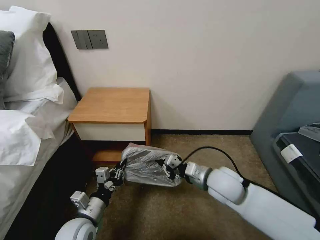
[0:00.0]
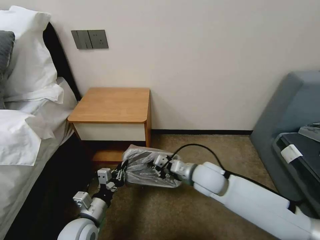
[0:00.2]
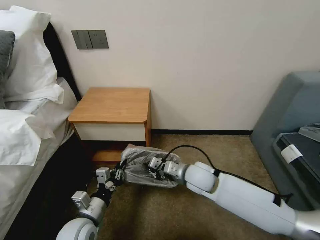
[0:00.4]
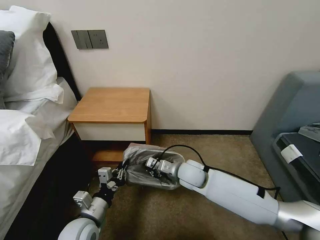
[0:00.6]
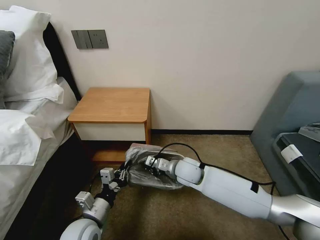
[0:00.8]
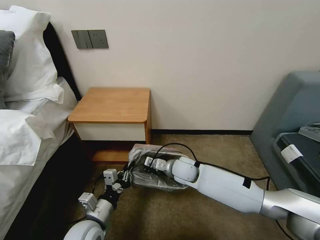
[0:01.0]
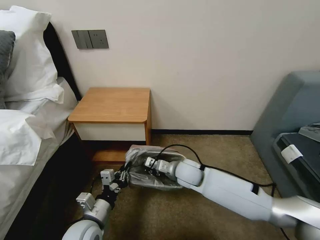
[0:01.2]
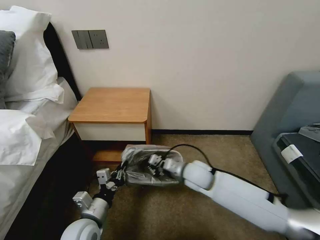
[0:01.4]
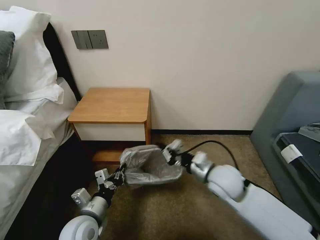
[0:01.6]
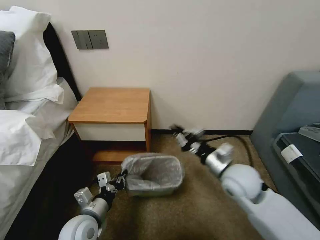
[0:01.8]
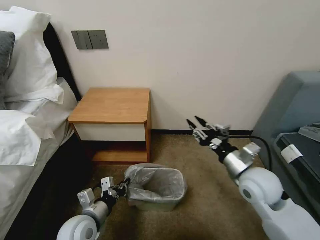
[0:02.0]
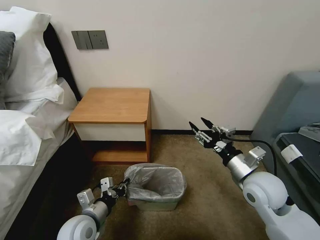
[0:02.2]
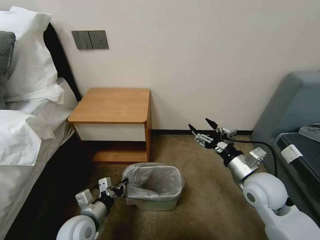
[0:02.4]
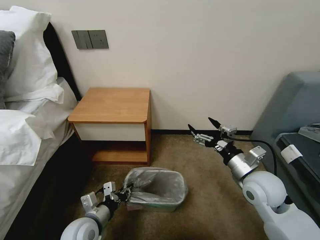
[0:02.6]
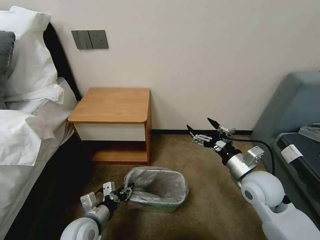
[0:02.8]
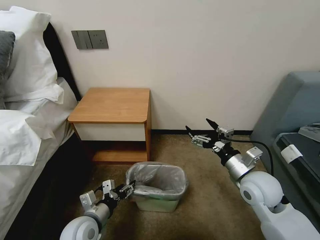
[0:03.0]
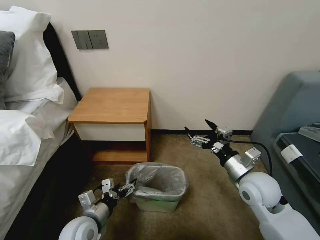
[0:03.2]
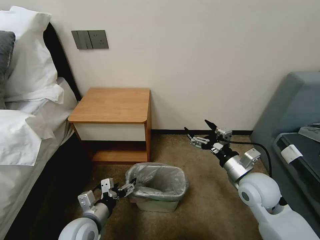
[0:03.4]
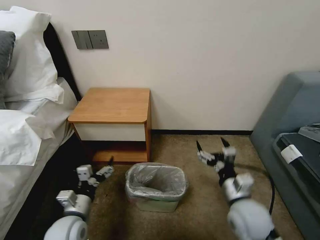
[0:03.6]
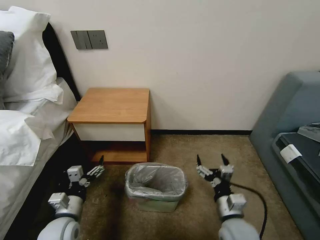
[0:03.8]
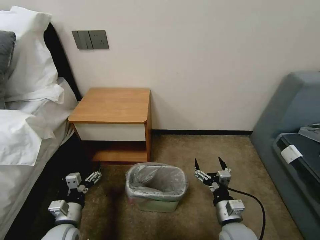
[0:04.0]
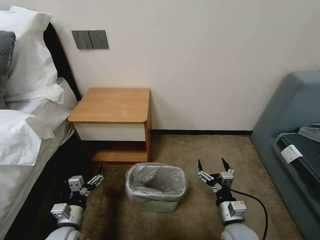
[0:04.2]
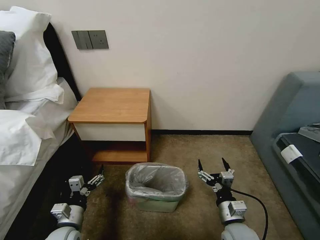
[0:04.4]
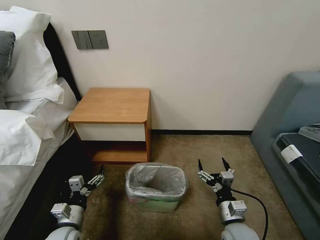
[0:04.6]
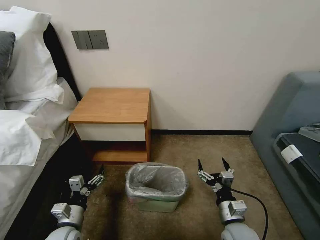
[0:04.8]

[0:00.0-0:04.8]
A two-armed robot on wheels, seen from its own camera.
Task of the whole recording: Pick up the garbage bag from the table and place it over the trash can.
0:00.0 to 0:01.6: The right gripper reaches roughly 10 cm to the left, then returns.
0:01.6 to 0:03.2: The left gripper opens up. Meanwhile the right gripper shifts roughly 10 cm to the right, and opens its fingers.
0:03.2 to 0:04.8: The right gripper shifts some 15 cm downward and backward, while the left gripper moves to the left and downward, some 10 cm.

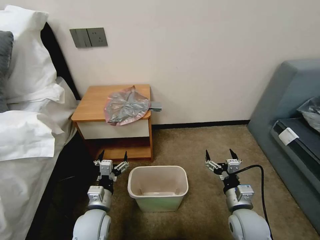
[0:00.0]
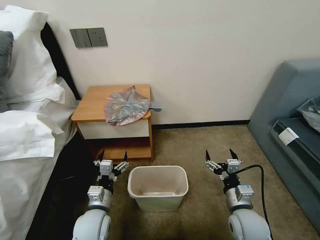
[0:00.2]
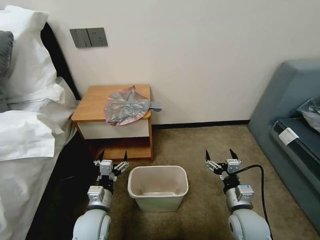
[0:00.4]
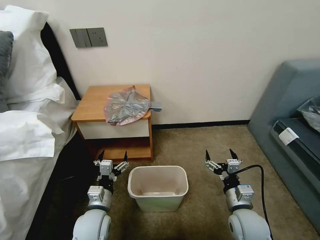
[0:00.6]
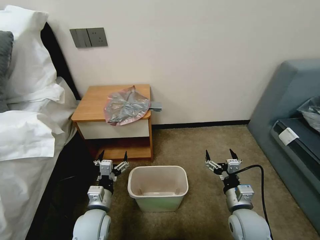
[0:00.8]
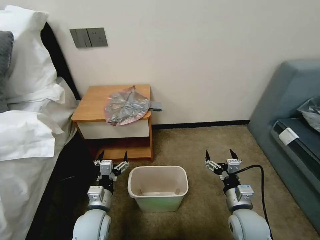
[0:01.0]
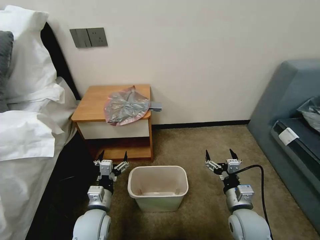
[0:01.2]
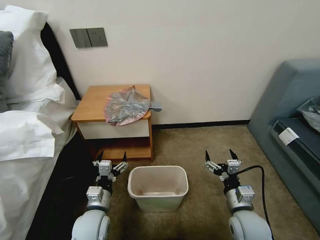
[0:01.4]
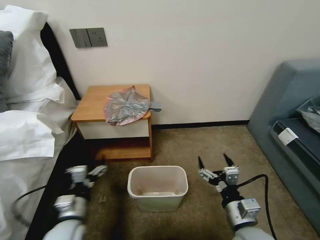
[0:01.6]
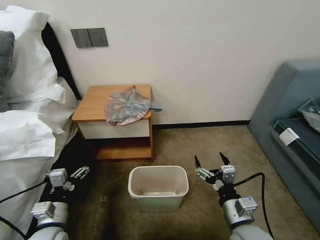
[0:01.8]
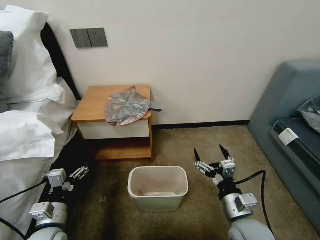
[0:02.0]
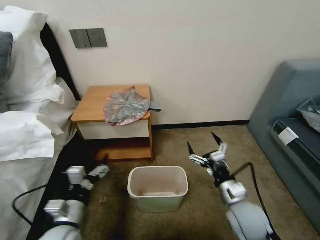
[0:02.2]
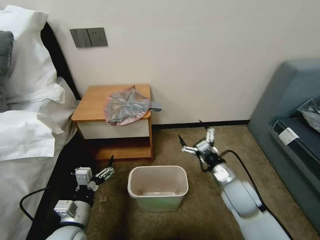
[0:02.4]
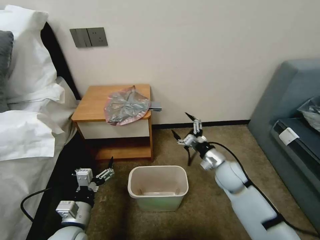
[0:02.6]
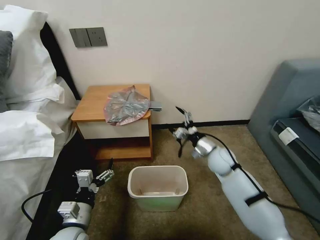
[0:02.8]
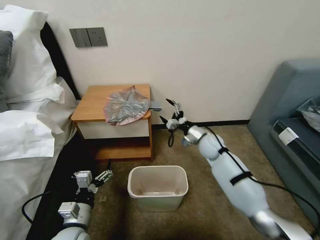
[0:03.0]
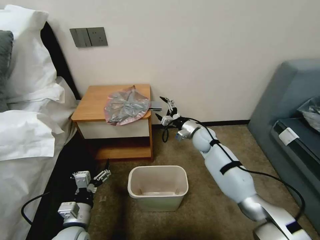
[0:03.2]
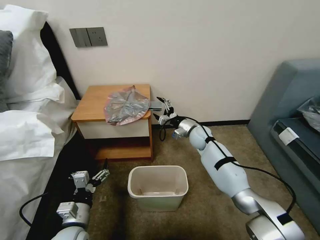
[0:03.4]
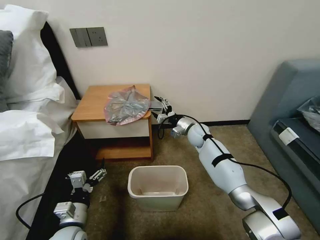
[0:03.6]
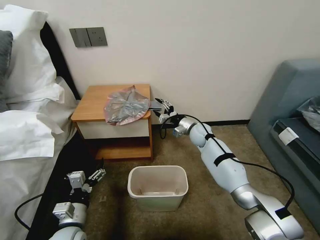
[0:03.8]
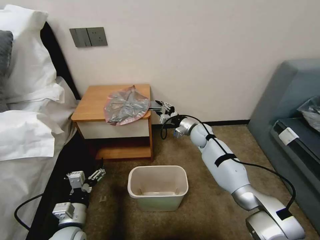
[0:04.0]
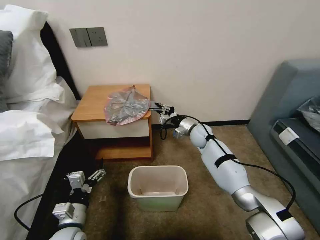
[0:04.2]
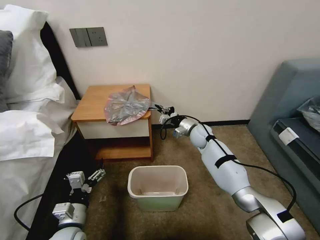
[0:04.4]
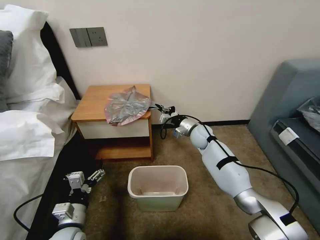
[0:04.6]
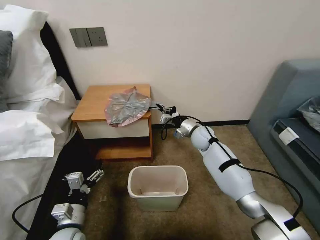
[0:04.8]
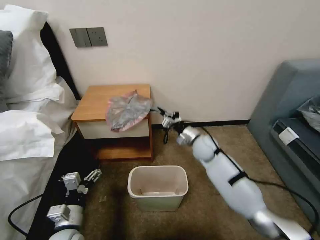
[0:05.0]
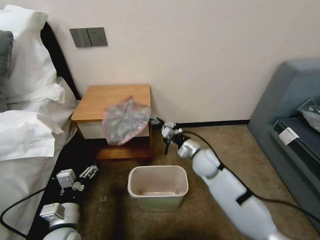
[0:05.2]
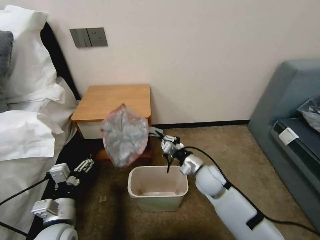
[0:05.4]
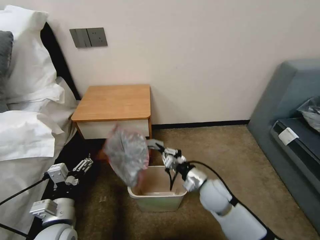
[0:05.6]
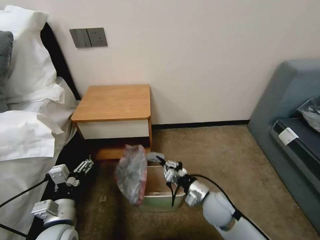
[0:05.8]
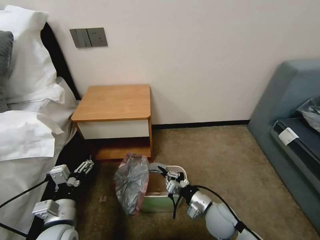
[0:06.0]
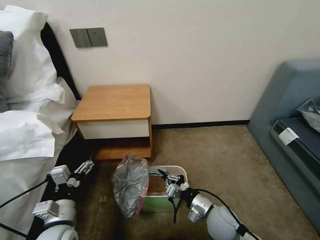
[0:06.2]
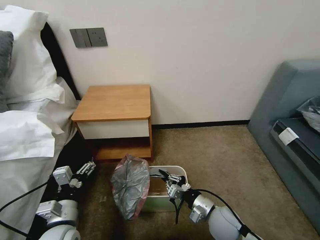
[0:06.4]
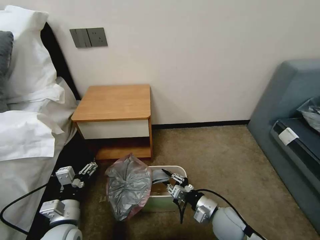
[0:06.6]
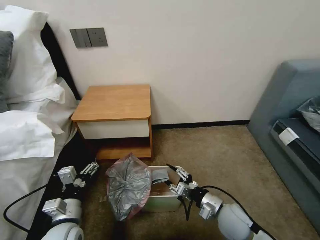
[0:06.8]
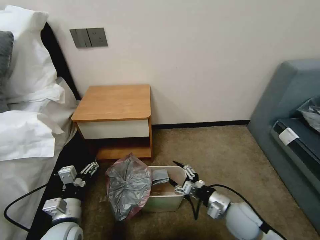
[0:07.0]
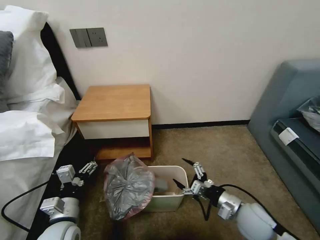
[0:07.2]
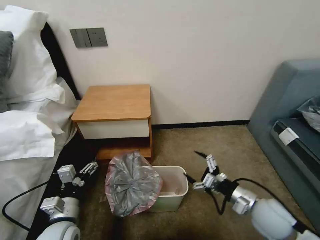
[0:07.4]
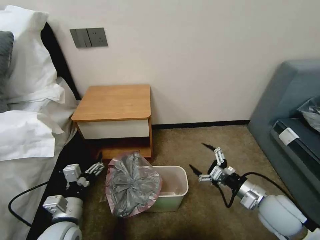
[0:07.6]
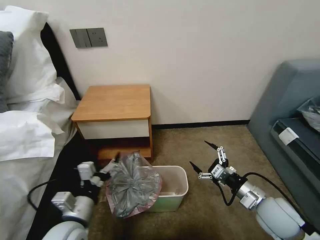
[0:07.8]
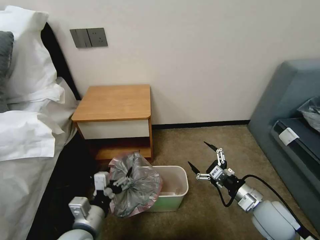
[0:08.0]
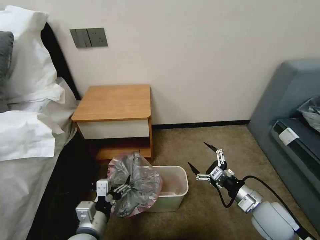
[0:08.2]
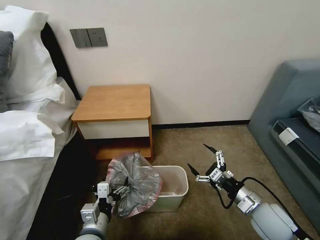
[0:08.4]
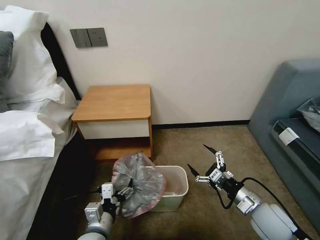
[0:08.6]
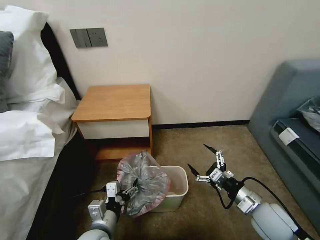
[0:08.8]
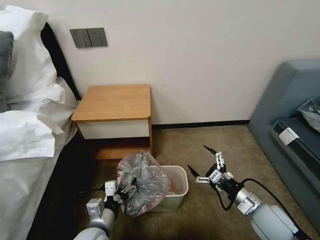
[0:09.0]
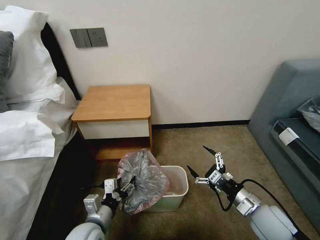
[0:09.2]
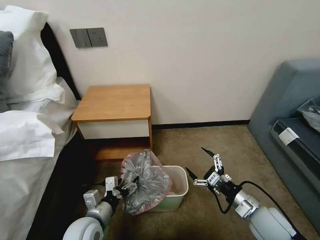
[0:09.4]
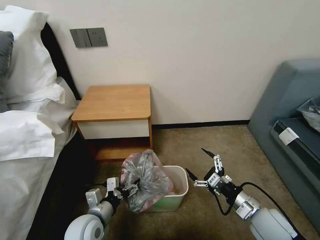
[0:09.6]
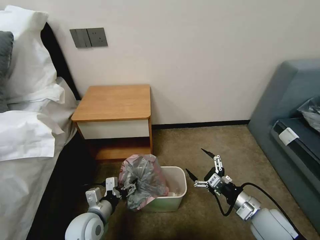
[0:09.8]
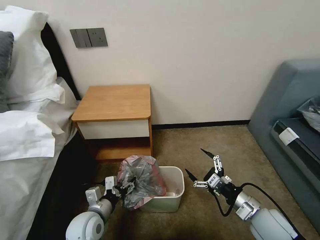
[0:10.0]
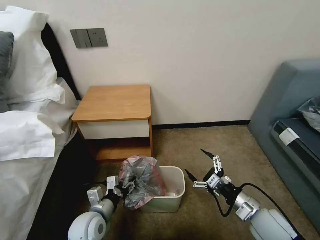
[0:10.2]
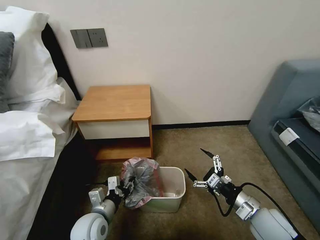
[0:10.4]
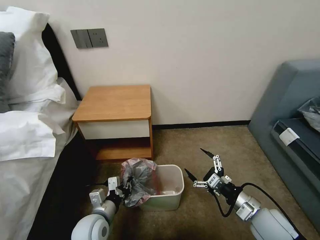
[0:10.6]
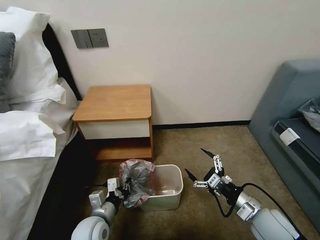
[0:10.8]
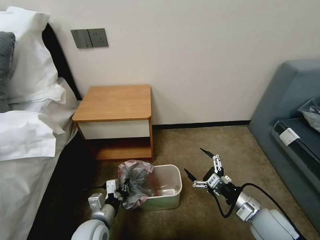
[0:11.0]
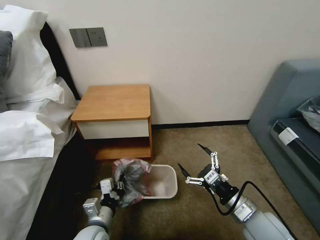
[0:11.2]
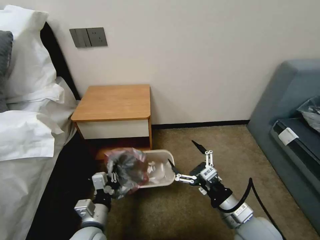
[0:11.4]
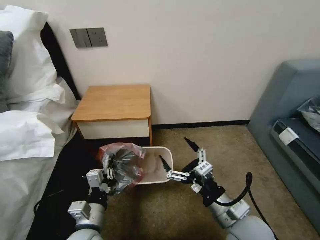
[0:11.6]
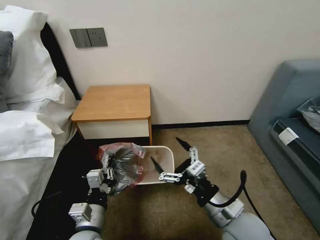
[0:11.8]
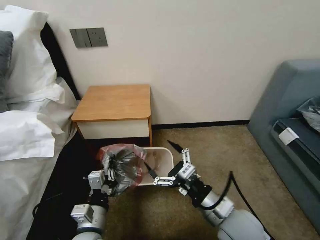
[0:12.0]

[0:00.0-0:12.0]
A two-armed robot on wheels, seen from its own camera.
Task of the whole recording: Pick up the garbage bag from the table and place it over the trash can.
0:01.6 to 0:03.0: The right gripper moves forward, some 30 cm.
0:03.0 to 0:04.4: The right gripper shifts some 5 cm forward, and closes.
0:04.4 to 0:06.0: The right gripper heads backward, covering approximately 30 cm; the left gripper is displaced upward by approximately 5 cm.
0:06.0 to 0:07.6: The right gripper shifts roughly 15 cm to the right and upward, and opens up.
0:07.6 to 0:09.0: The left gripper is displaced to the right by about 5 cm.
0:09.0 to 0:10.4: The left gripper closes.
0:10.4 to 0:12.0: The right gripper goes some 15 cm to the left and upward, while the left gripper travels backward by roughly 5 cm, and closes.

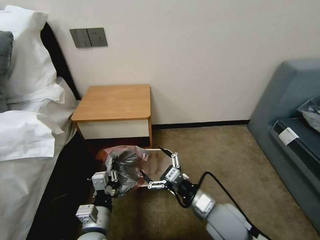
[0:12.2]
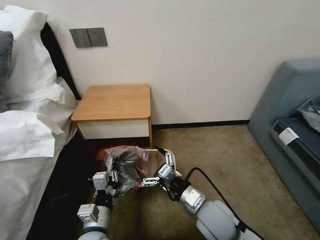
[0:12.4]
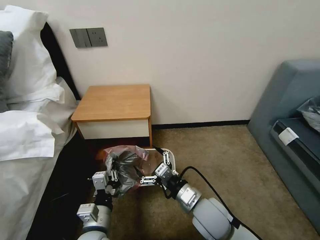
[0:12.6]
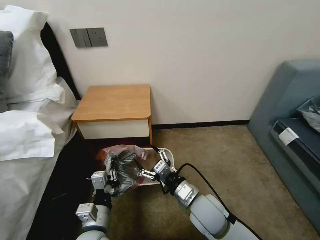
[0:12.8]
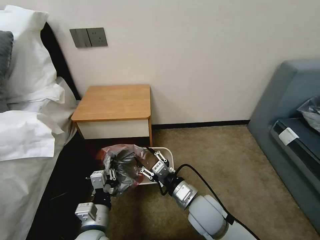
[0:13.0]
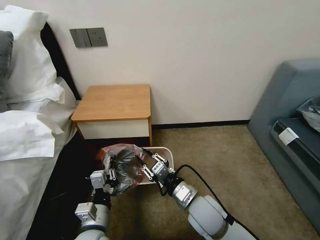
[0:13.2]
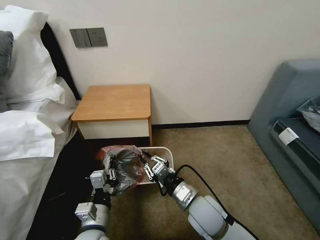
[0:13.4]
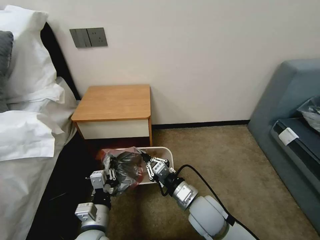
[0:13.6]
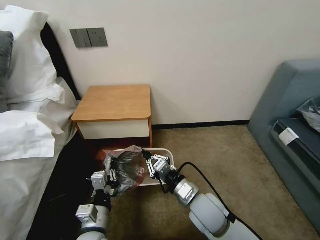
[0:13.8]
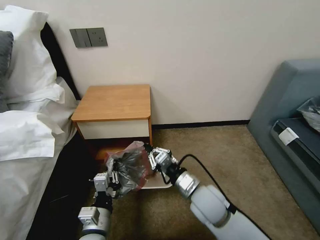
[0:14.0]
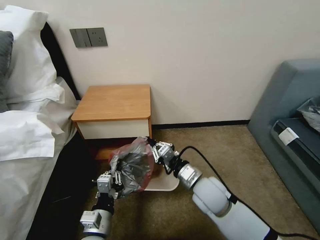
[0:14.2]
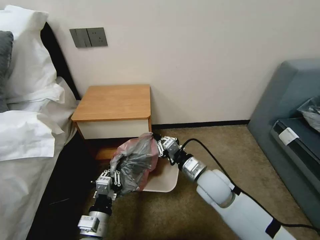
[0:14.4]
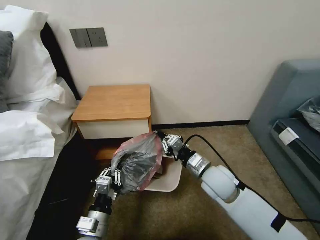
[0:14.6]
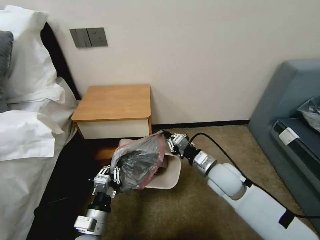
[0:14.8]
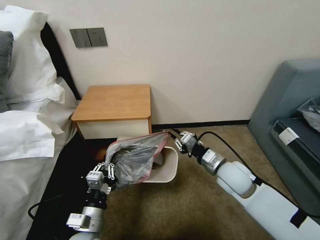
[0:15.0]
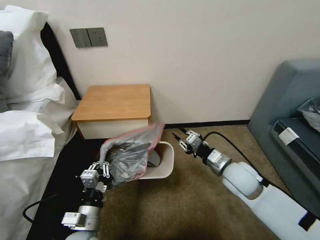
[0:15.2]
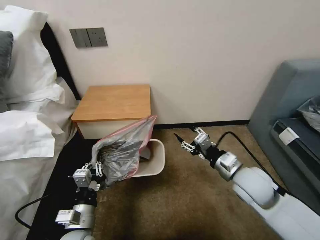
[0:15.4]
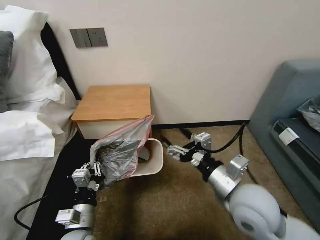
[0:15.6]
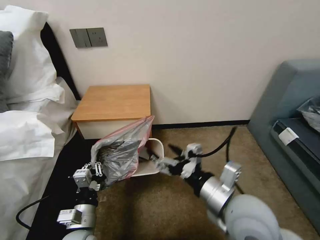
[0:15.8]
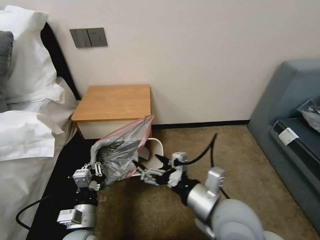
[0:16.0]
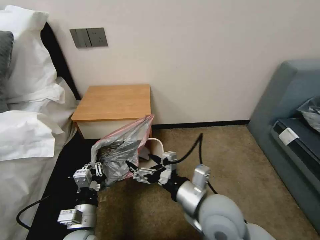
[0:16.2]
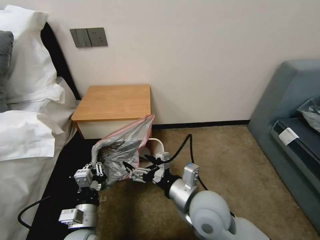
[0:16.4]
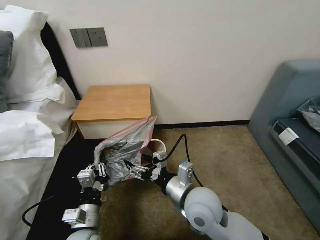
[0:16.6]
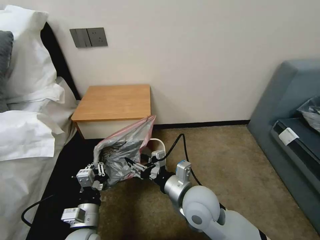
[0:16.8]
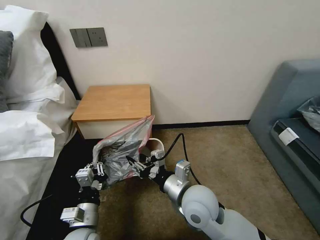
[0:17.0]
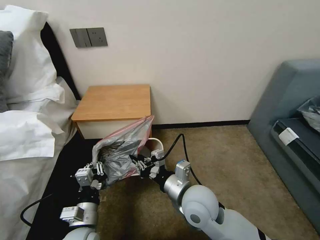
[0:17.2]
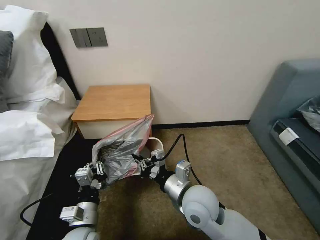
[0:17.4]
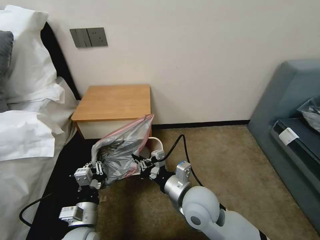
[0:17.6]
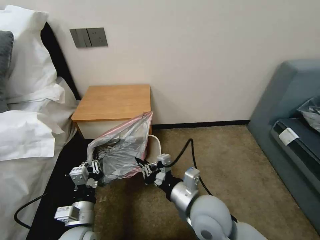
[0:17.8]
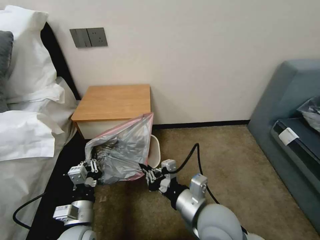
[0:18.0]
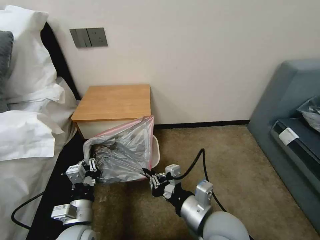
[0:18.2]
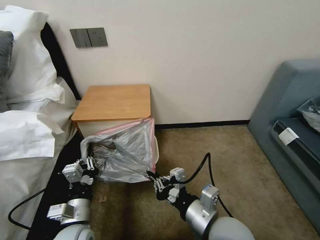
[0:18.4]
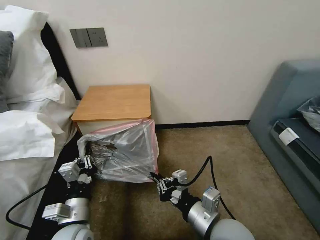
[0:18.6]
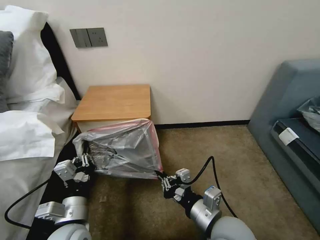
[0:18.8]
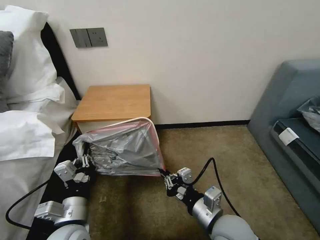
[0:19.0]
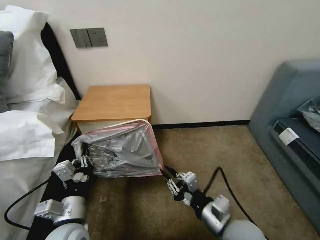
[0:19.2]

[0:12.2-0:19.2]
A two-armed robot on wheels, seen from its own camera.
Task of the whole recording: Pick up the garbage bag from the table and place it over the trash can.
0:12.2 to 0:13.6: The right gripper moves some 5 cm, and closes up.
0:13.6 to 0:15.0: The right gripper is displaced to the right and forward by roughly 15 cm.
0:15.0 to 0:16.4: The right gripper travels to the left and backward by some 15 cm, and opens up.
0:16.4 to 0:17.8: The right gripper closes.
0:17.8 to 0:19.2: The left gripper goes approximately 5 cm upward, while the right gripper travels to the right and backward by some 10 cm.
